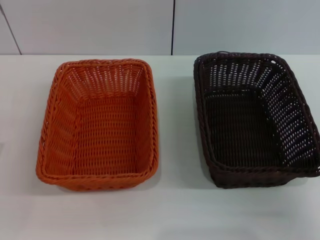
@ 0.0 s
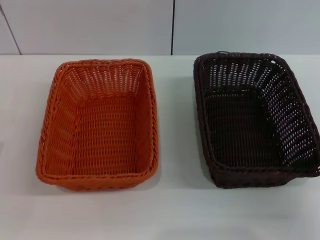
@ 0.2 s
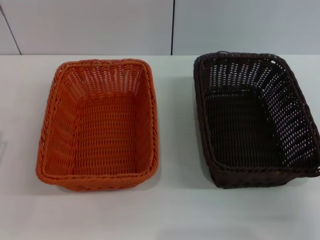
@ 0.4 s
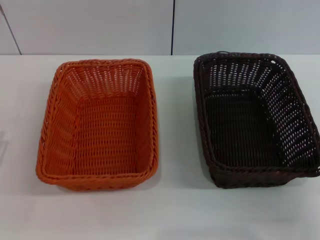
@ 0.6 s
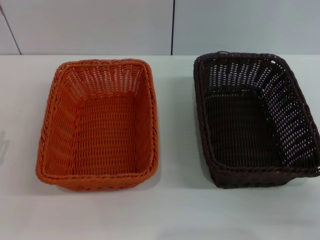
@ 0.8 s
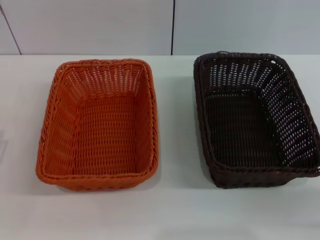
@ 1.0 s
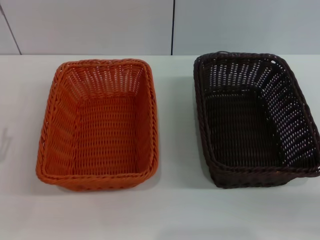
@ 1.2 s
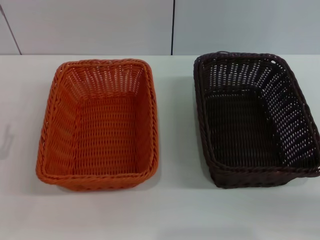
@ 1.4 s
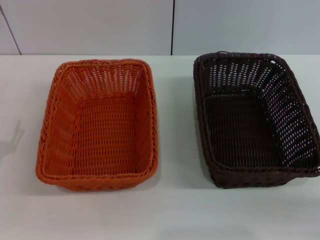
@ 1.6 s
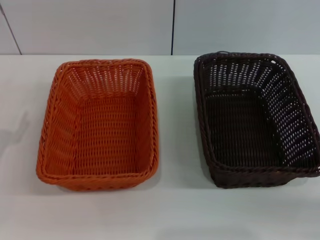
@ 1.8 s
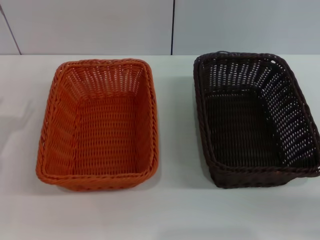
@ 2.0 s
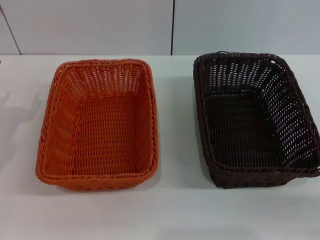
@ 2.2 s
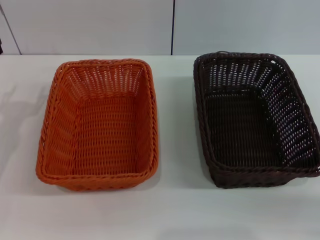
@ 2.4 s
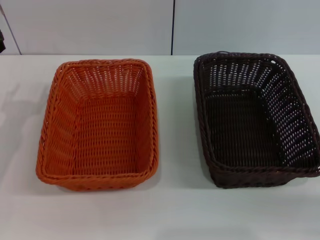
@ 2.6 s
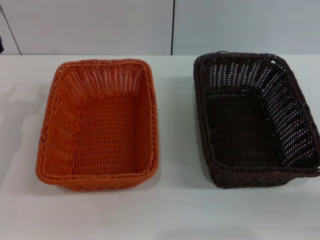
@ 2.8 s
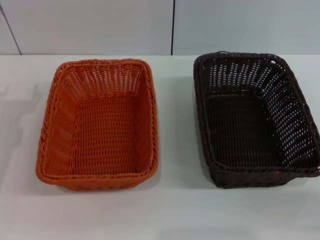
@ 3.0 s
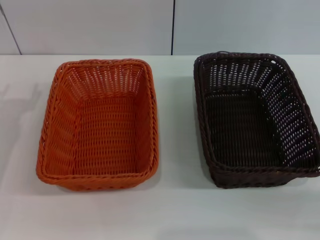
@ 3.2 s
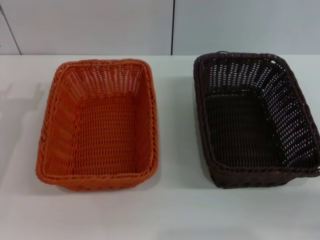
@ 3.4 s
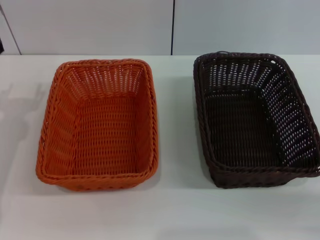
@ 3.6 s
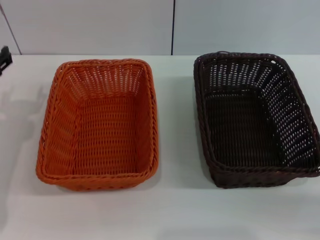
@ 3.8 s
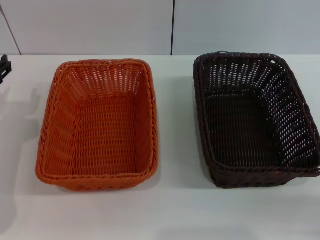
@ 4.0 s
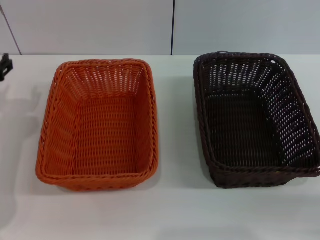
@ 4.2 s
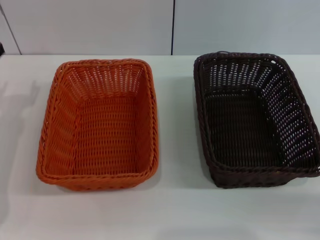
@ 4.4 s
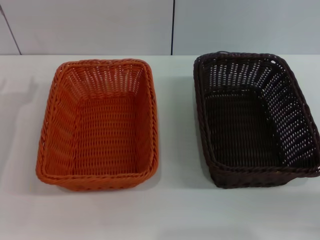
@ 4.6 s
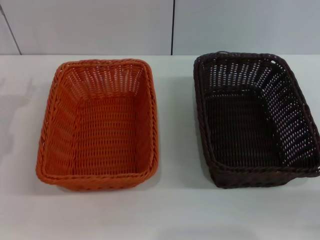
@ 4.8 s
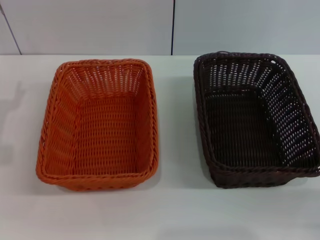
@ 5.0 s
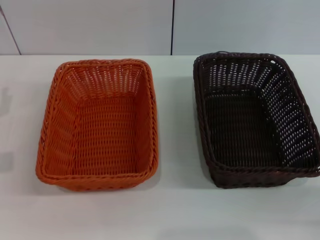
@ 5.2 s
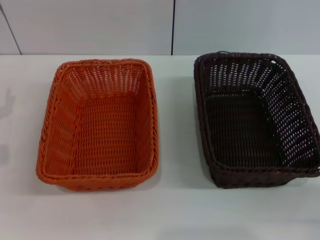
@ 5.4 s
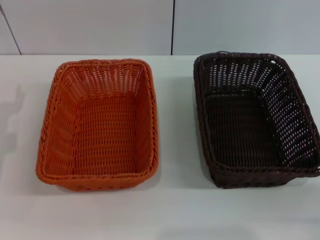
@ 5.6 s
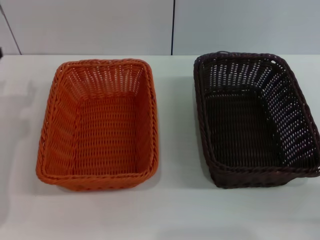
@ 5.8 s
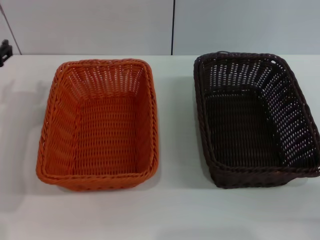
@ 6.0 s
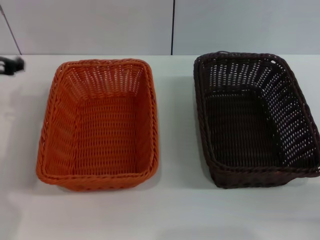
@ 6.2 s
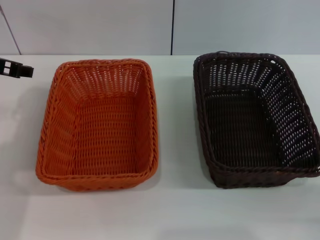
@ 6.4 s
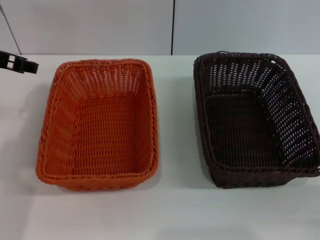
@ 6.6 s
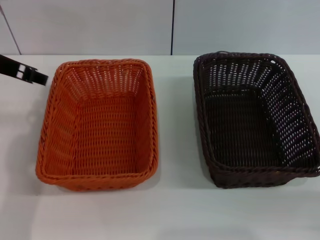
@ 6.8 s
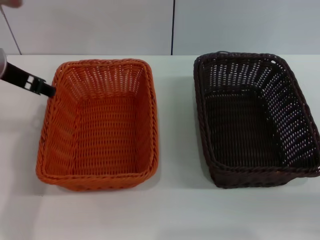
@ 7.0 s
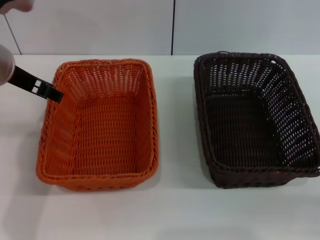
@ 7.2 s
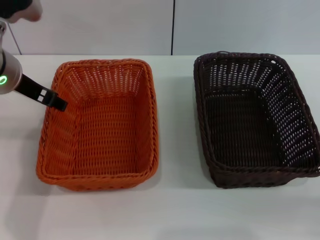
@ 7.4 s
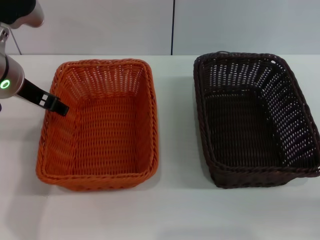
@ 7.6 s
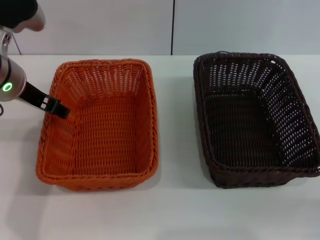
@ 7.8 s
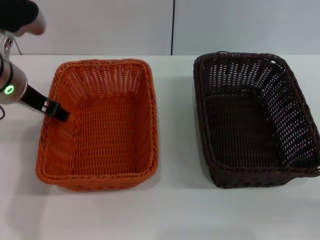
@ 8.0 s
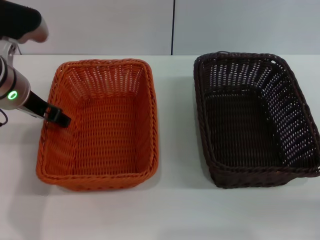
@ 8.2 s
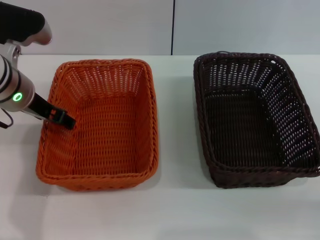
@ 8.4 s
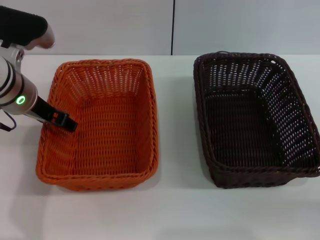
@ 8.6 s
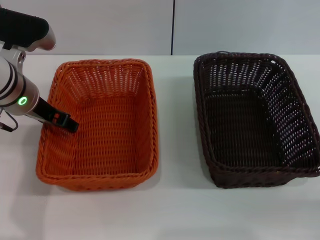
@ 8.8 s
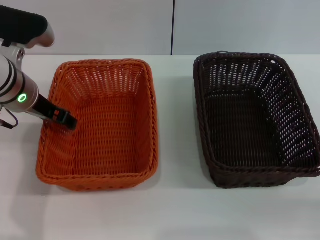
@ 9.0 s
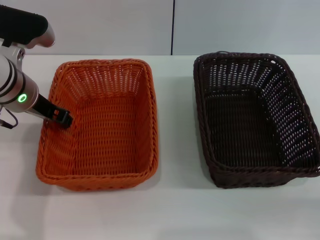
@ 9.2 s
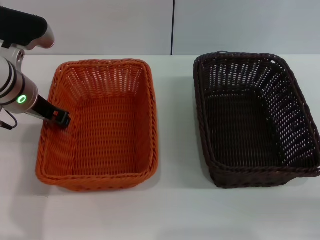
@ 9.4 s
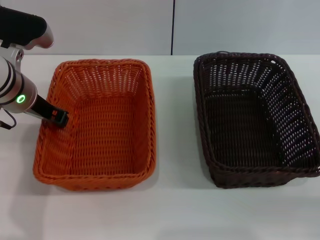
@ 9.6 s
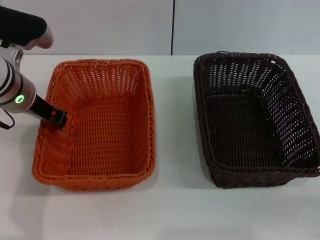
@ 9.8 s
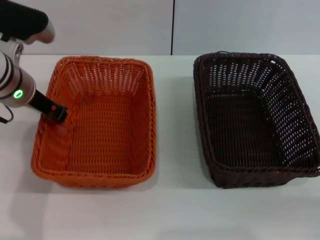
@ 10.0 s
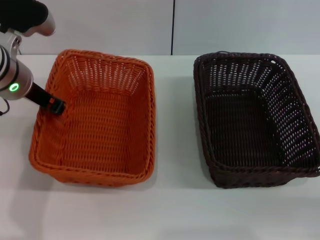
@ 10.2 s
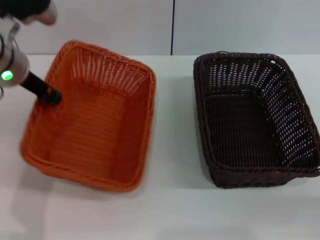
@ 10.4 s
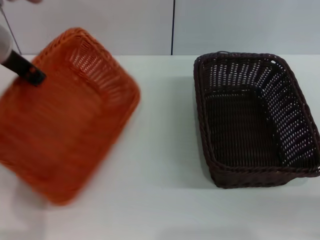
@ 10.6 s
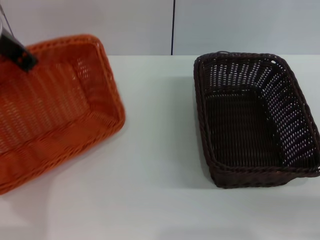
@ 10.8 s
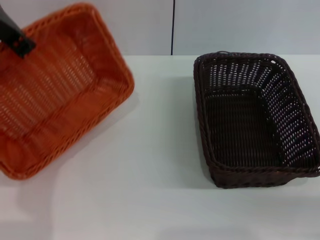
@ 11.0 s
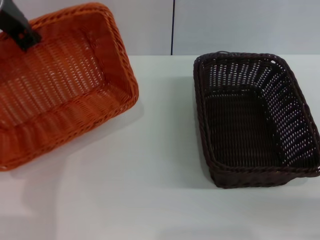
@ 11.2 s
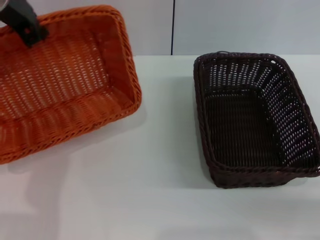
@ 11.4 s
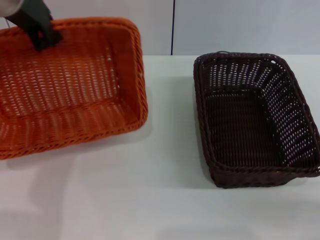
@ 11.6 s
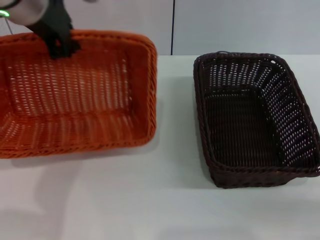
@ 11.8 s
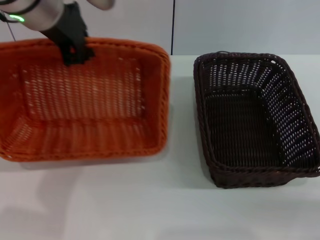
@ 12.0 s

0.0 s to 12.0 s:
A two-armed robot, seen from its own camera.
Step, 0.0 to 10.4 s: Pick up the light basket with the left gripper.
6.0 to 7.6 s: The left gripper shifts roughly 10 cm to the right and upward.
7.6 to 9.0 s: The grippers make only small movements.
9.0 to 10.4 s: The left gripper closes its fingers.
10.4 to 12.0 s: The left gripper heads upward and to the right, covering about 10 cm.

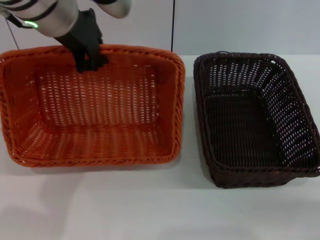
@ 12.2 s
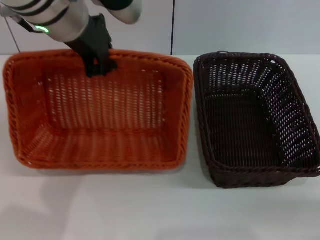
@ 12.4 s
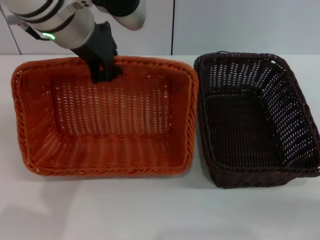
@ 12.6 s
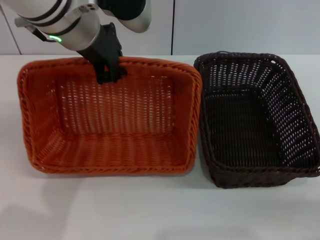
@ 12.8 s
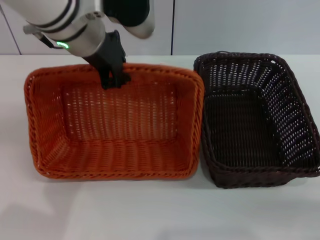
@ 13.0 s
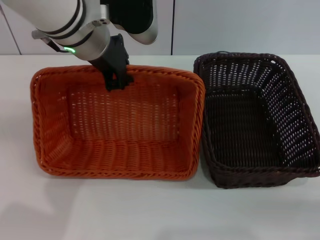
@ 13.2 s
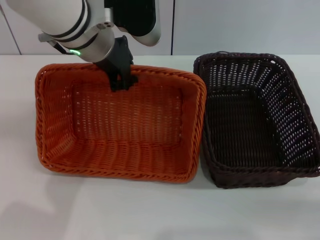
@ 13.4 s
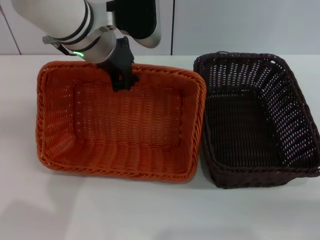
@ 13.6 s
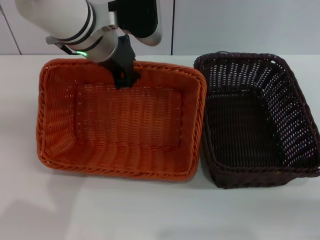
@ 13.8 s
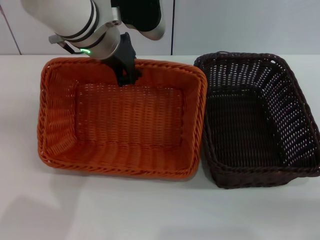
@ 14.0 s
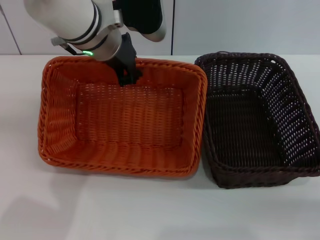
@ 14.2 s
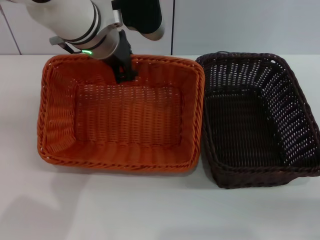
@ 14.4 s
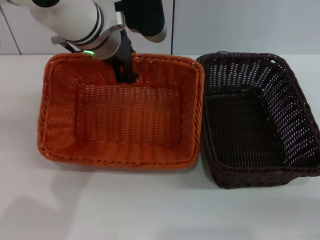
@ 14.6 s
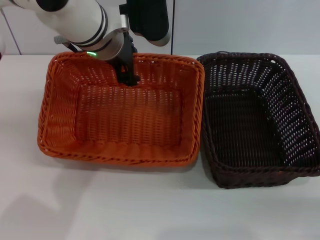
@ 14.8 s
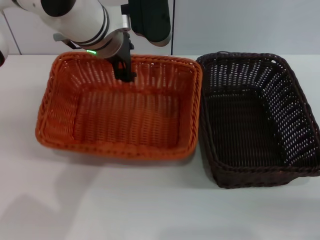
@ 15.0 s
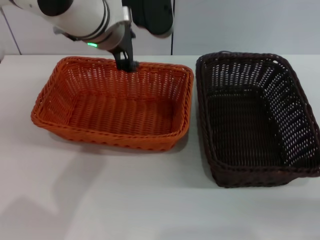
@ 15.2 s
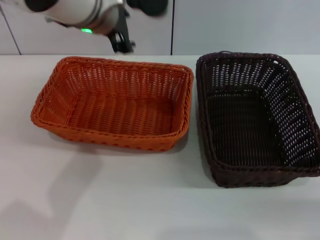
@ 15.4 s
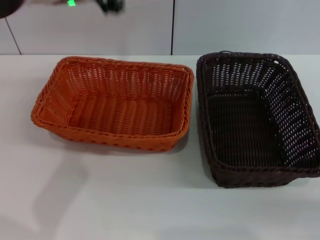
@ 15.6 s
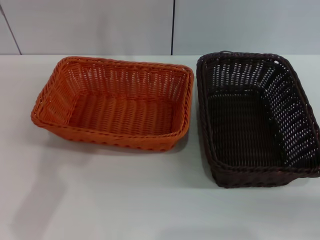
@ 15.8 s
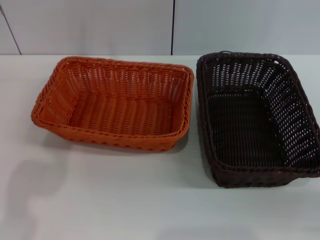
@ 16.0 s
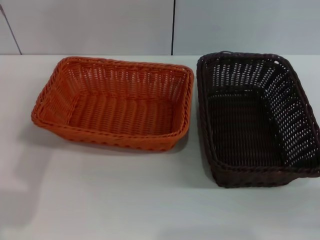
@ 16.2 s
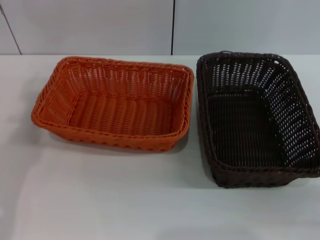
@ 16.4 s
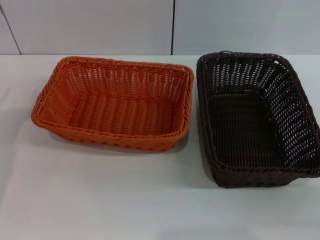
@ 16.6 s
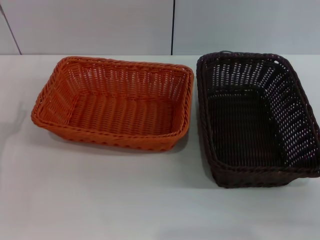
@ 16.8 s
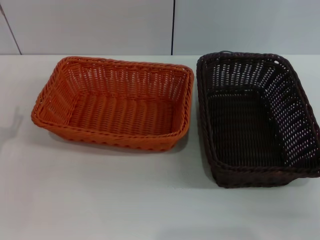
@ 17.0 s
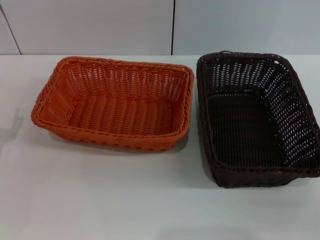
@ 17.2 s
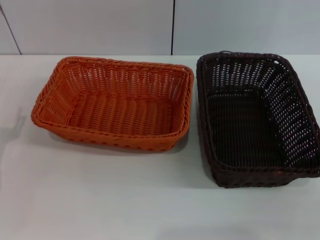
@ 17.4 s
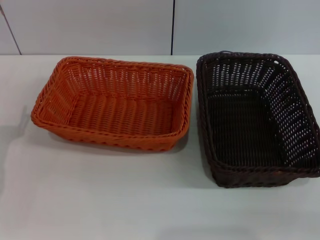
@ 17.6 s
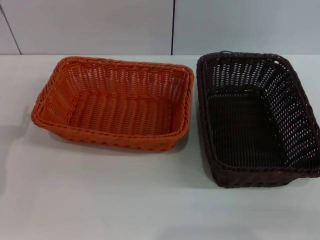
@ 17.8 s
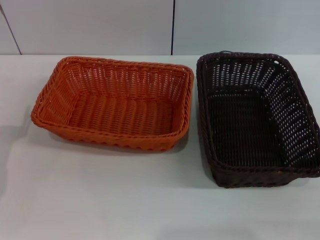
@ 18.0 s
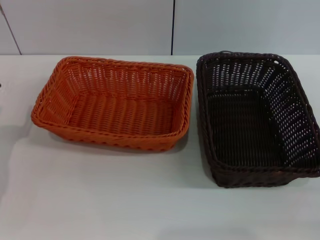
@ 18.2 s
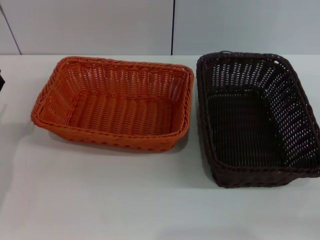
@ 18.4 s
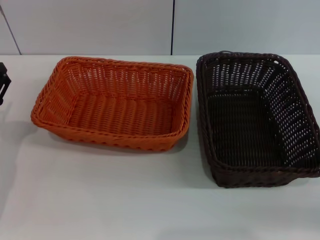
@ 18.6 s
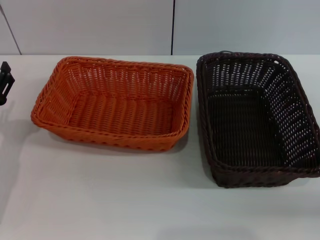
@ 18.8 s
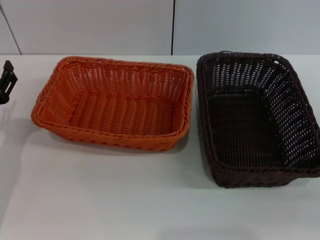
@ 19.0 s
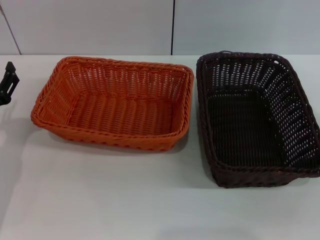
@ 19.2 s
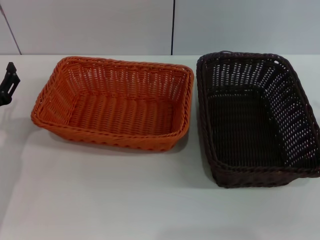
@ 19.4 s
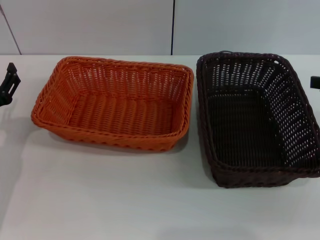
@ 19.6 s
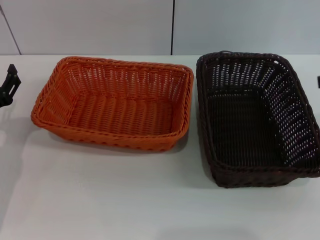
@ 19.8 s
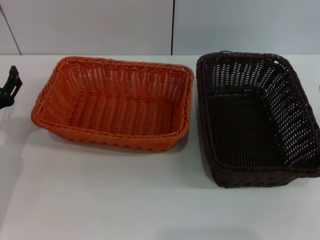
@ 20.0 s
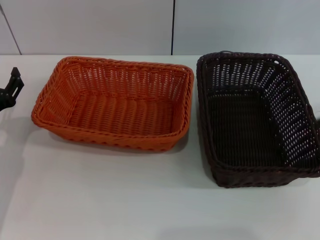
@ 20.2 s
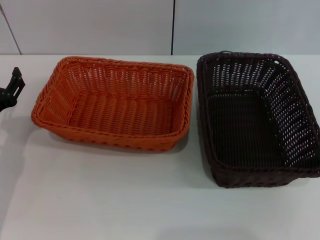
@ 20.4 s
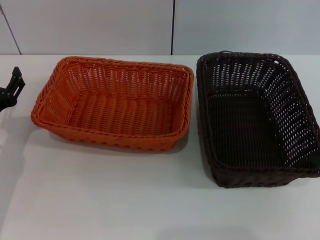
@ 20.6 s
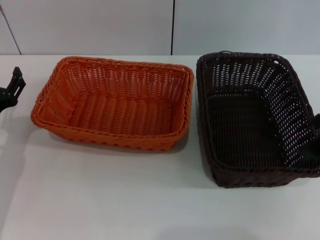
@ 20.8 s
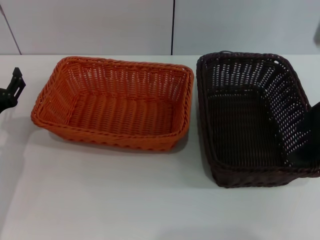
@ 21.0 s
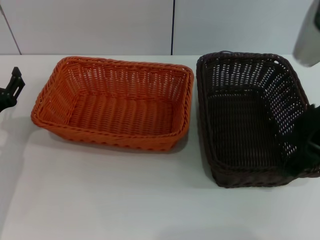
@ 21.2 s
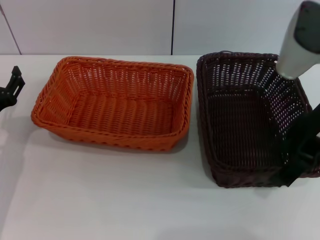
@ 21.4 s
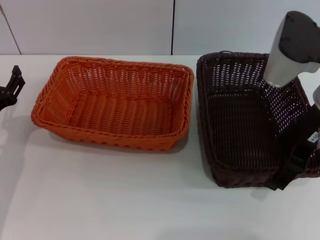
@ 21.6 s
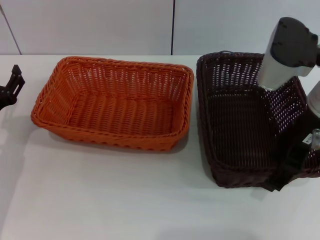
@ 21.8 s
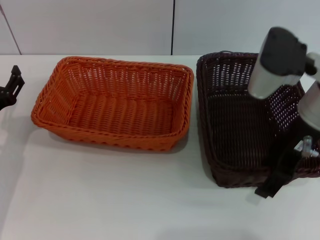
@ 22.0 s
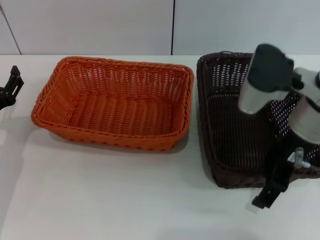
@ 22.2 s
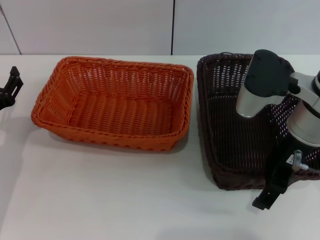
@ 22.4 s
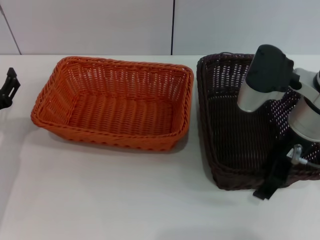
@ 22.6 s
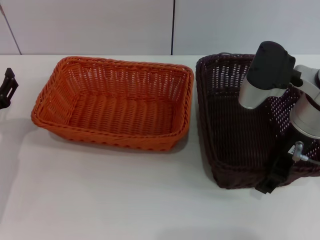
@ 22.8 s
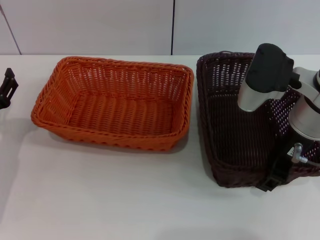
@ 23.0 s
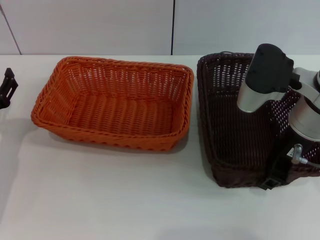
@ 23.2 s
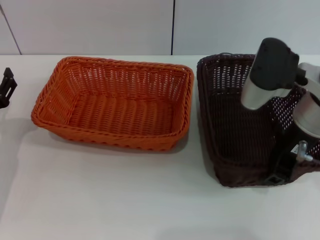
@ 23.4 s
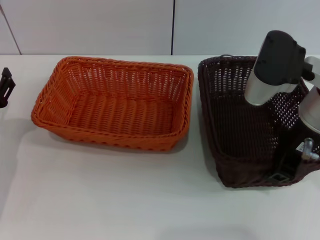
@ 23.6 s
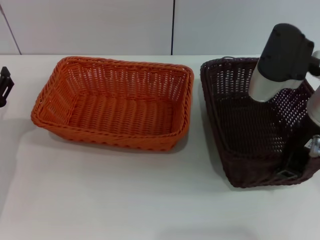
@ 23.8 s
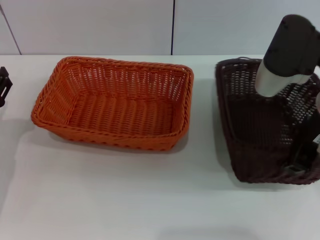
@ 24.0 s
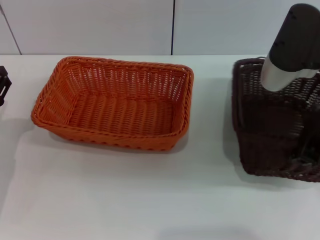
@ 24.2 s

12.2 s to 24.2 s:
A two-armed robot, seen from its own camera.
Step, 12.2 to 15.0 s: Place the light basket in the center of view with the left gripper.
Step, 15.2 to 24.2 s: Pick up the dark basket with the right gripper.
12.2 to 13.8 s: The left gripper moves downward, roughly 5 cm.
13.8 to 15.2 s: The left gripper opens its fingers.
15.2 to 16.6 s: The left gripper shifts approximately 25 cm to the left, backward and downward.
19.8 to 21.2 s: The right gripper travels to the left by roughly 15 cm.
21.2 to 22.6 s: The right gripper is displaced downward by roughly 5 cm.
22.6 to 24.2 s: The right gripper heads upward, covering some 5 cm, and closes.
